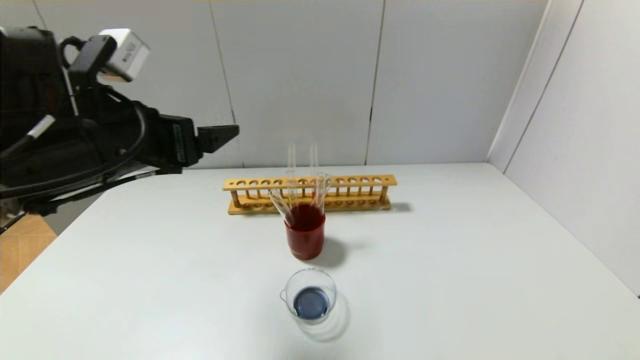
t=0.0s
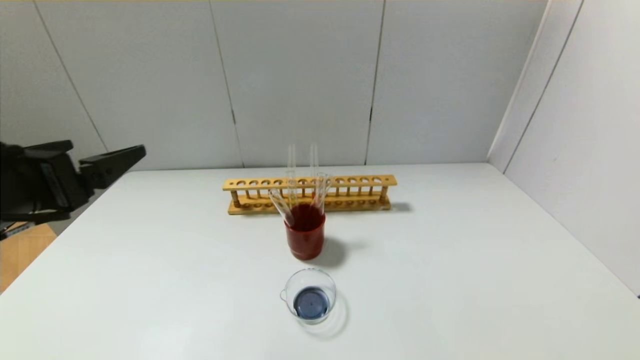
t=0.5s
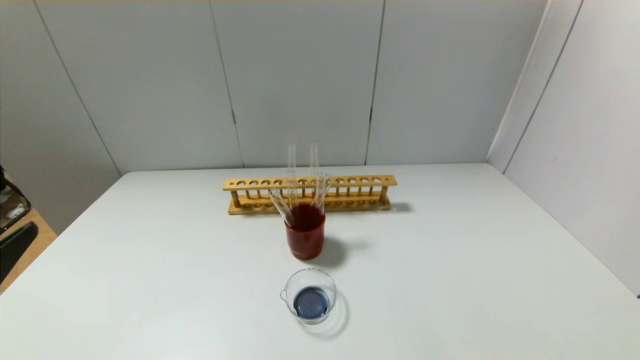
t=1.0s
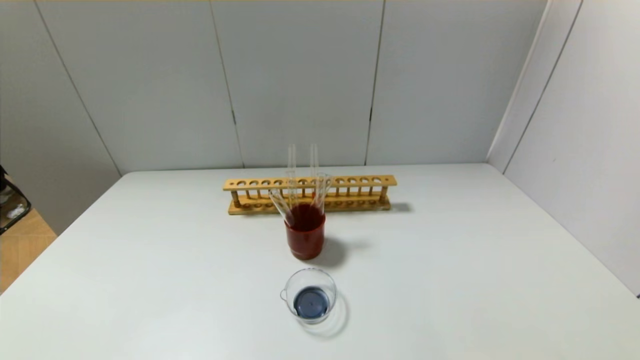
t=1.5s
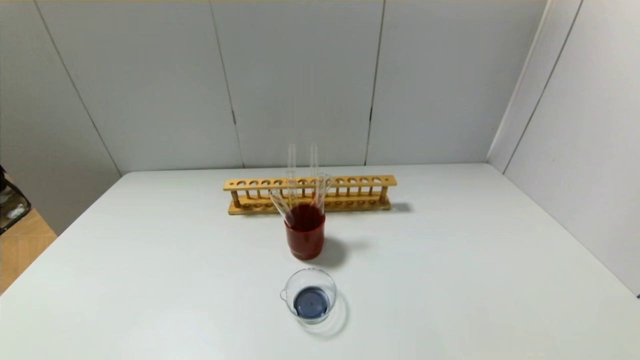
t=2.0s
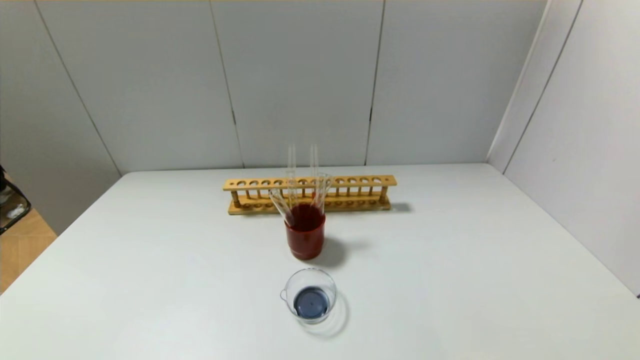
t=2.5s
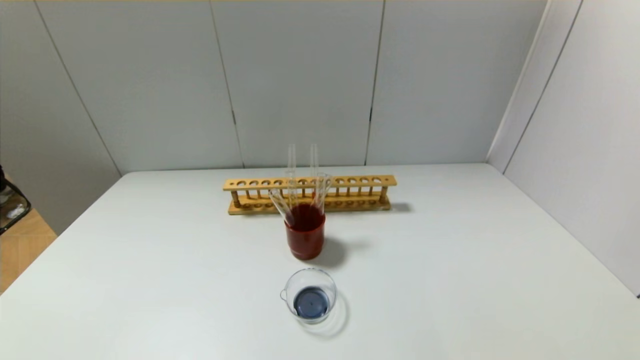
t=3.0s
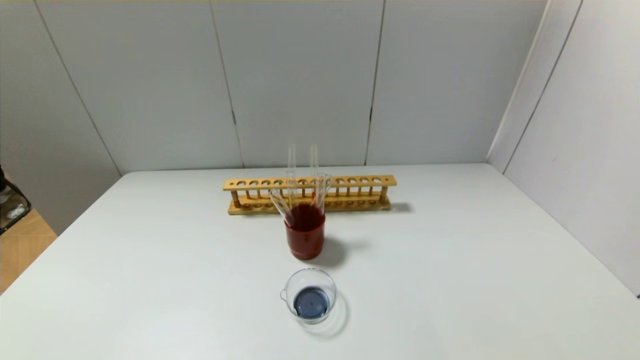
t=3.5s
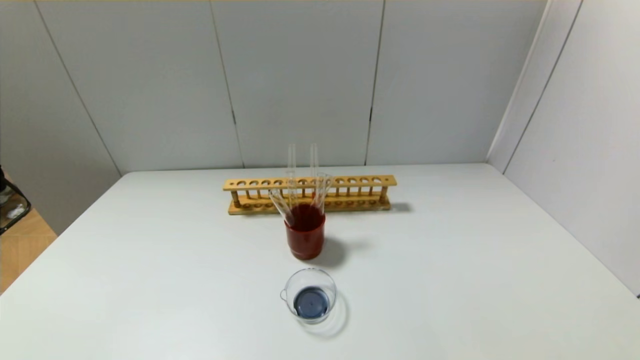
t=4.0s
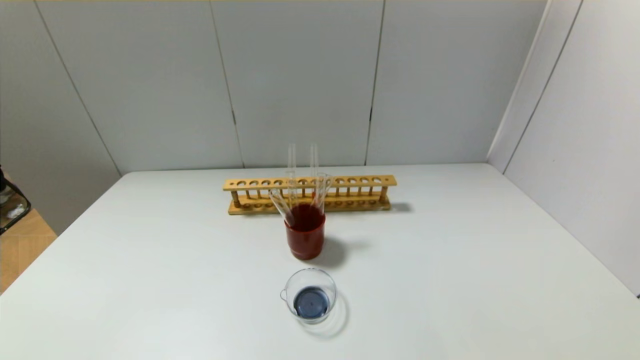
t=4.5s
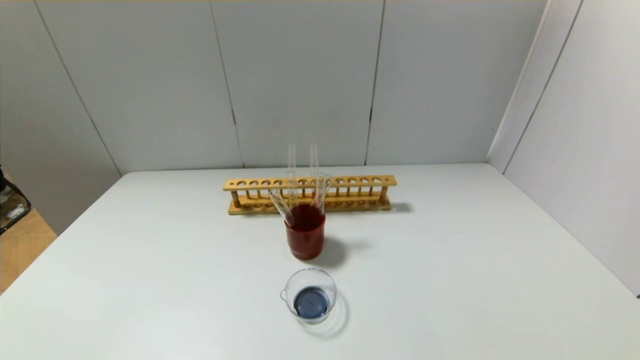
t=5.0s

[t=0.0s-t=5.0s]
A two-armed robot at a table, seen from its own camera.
t=0.0s to t=2.5s: The left gripper is displaced backward and downward by roughly 30 cm.

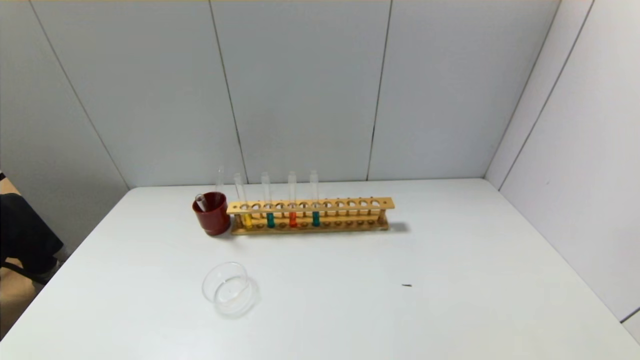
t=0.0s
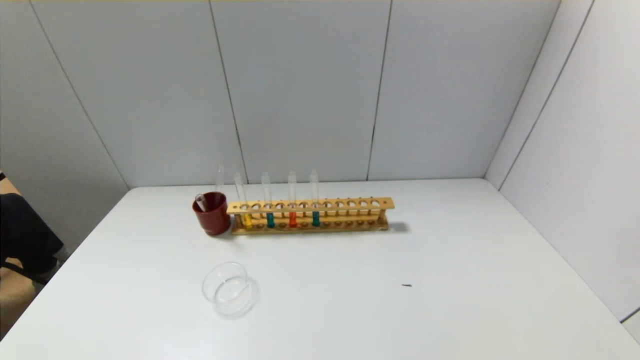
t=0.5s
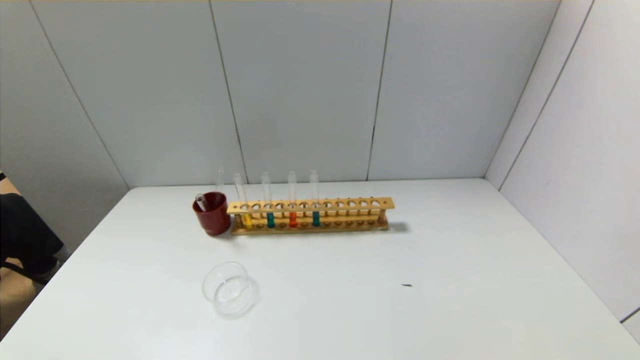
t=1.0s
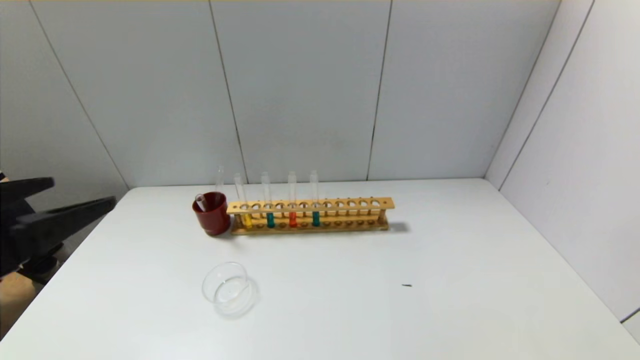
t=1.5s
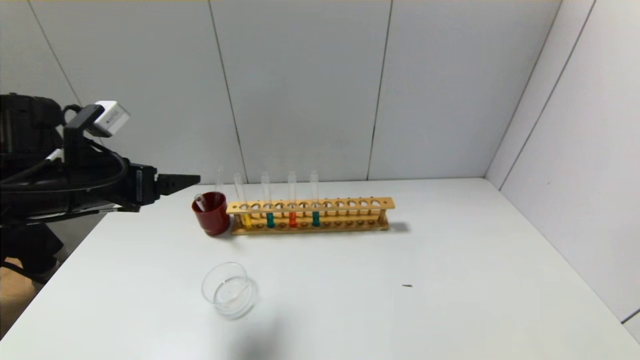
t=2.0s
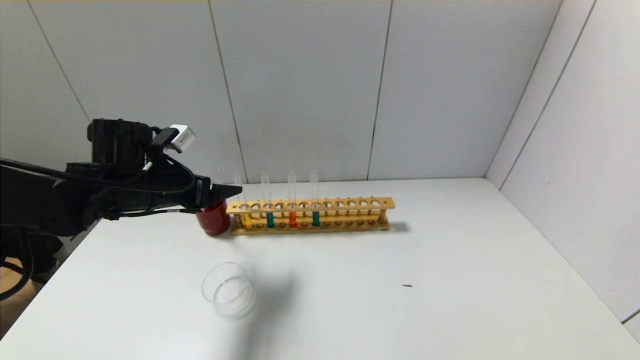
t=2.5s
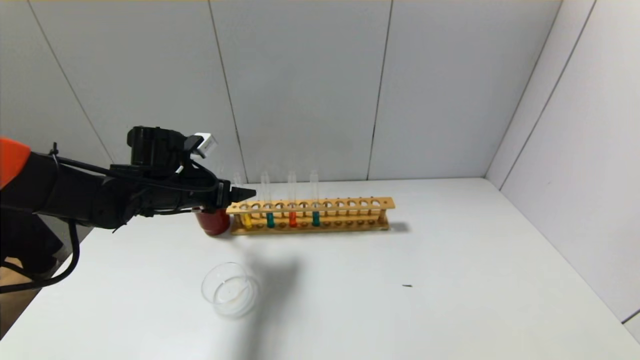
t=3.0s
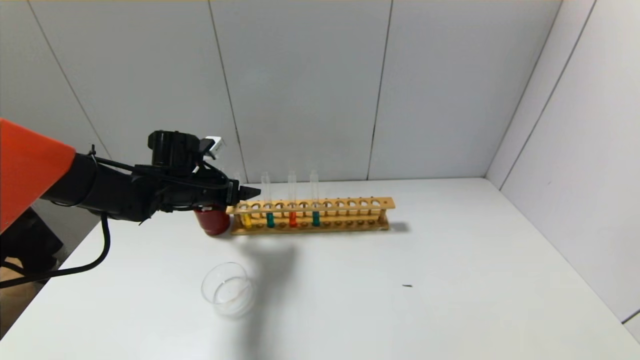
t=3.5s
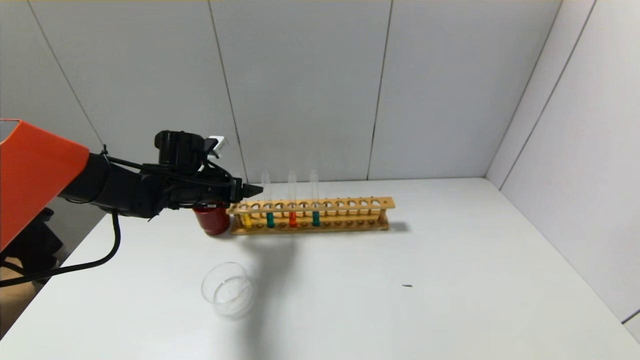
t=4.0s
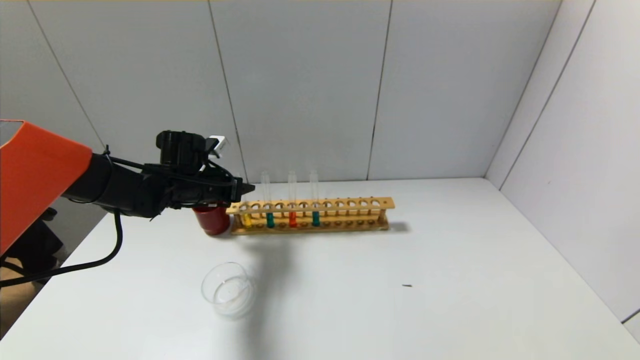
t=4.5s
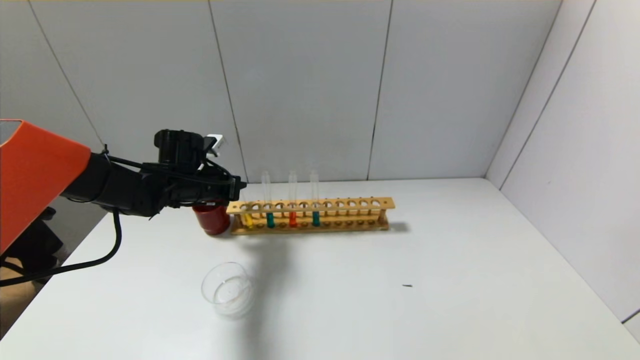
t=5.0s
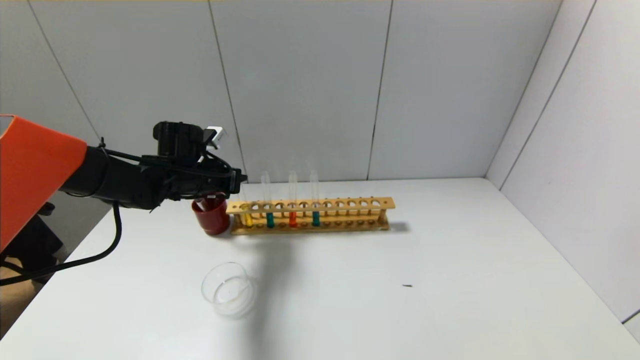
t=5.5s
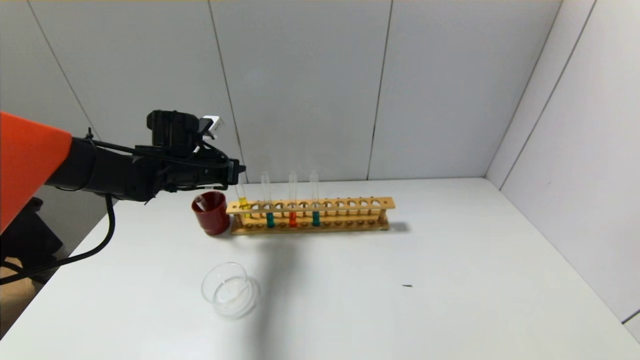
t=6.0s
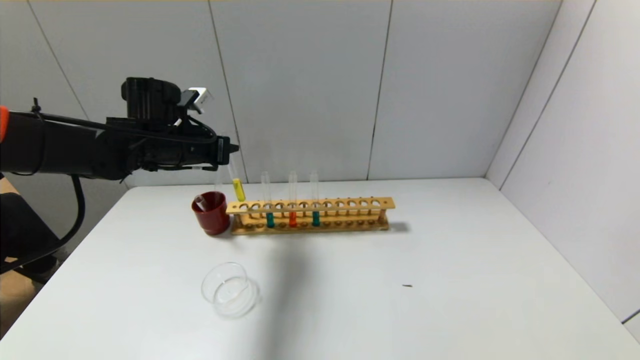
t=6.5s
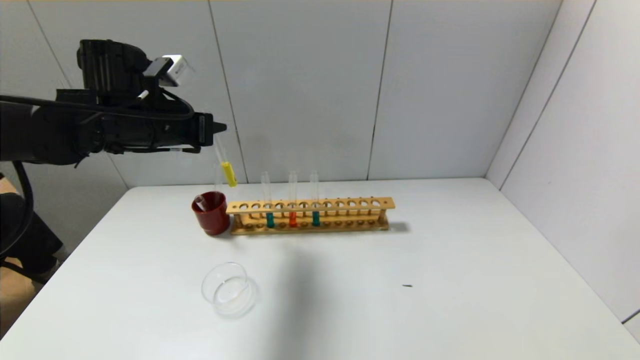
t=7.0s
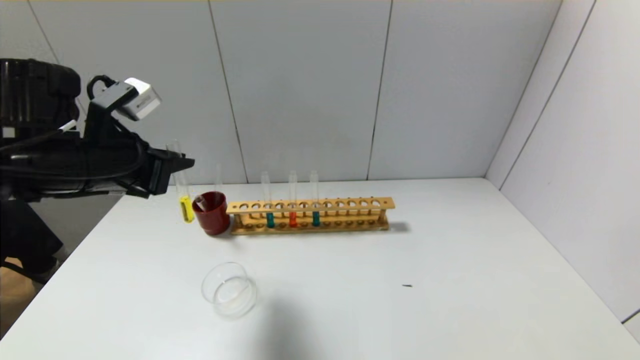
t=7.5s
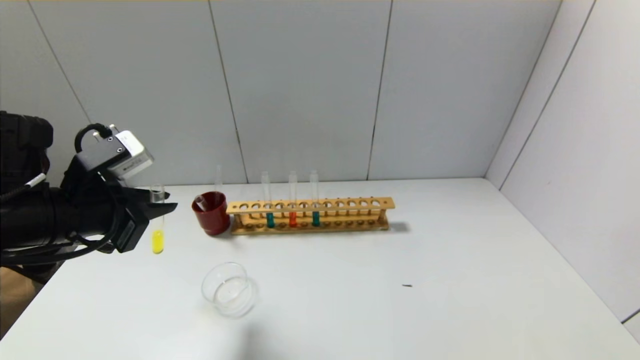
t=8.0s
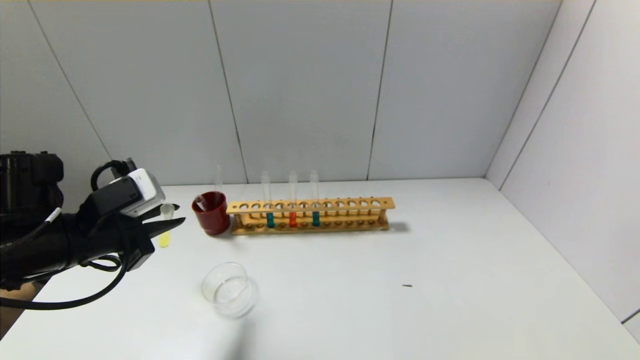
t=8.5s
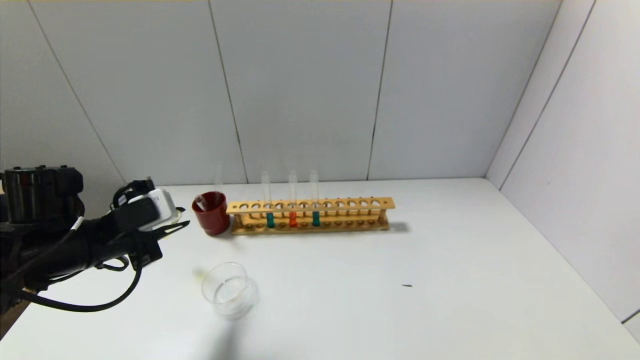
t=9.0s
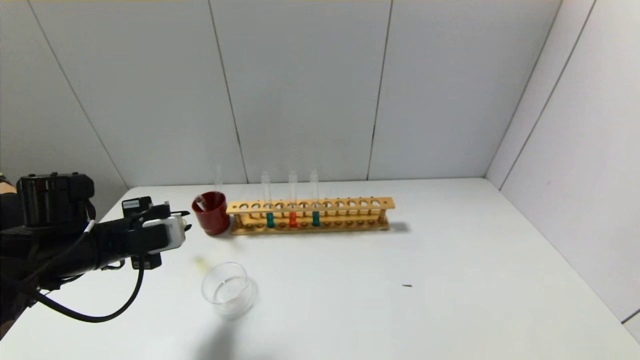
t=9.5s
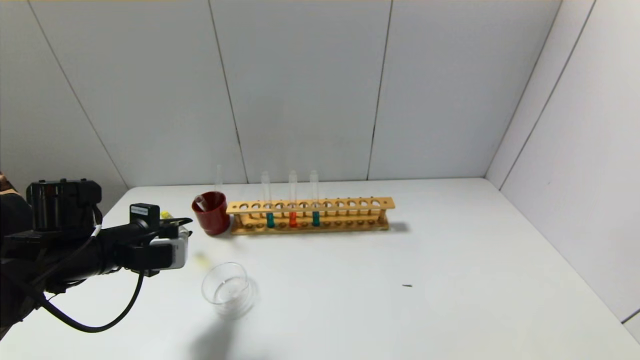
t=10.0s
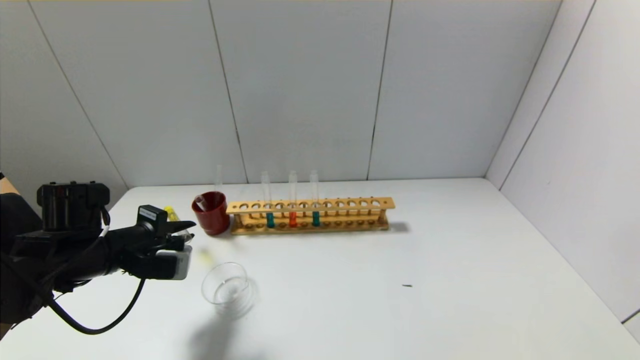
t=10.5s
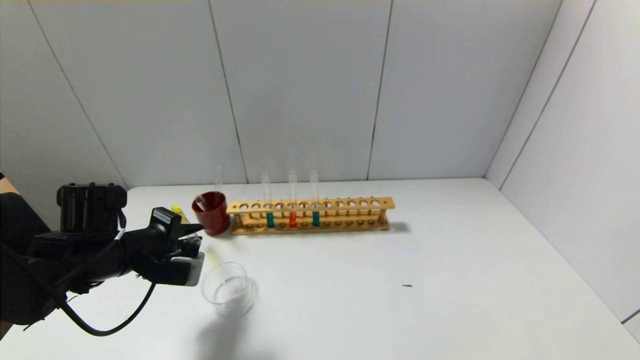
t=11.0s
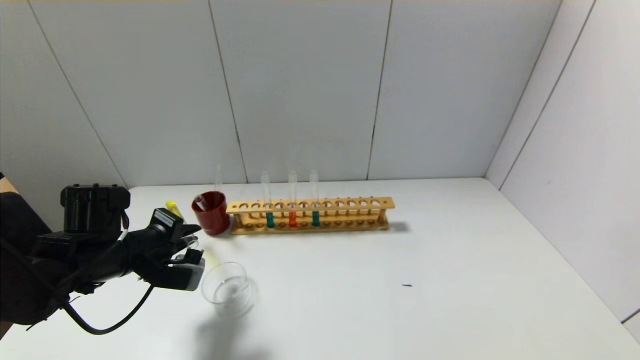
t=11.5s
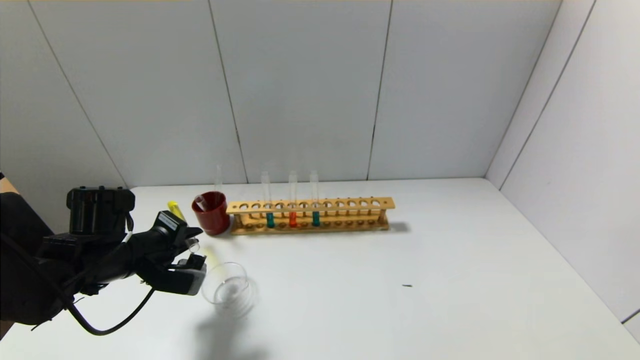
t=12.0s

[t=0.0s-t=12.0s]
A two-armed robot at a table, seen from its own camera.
Step, t=0.0s to t=4.5s: Grasp the yellow reagent with the left gripper.
t=0.0s to t=2.0s: The left gripper travels forward and upward by some 35 cm.
t=2.0s to t=4.0s: The left gripper heads forward, downward and to the right, covering about 15 cm.
t=4.0s to t=6.0s: The left gripper closes.
t=6.0s to t=8.0s: The left gripper is displaced backward by some 20 cm.
t=8.0s to t=10.0s: The left gripper heads downward, covering about 10 cm.

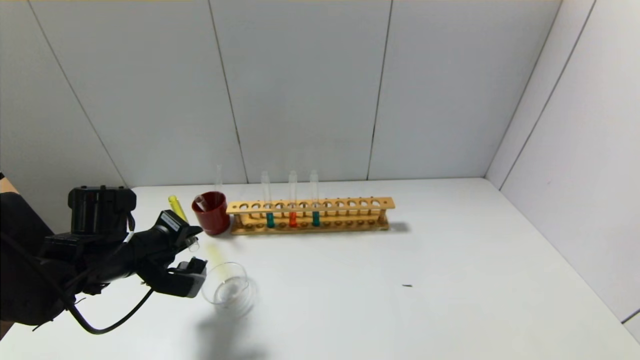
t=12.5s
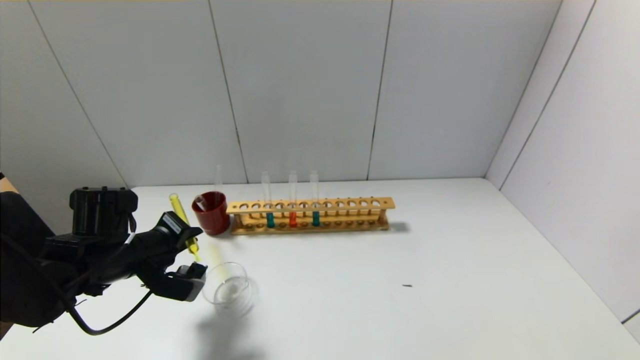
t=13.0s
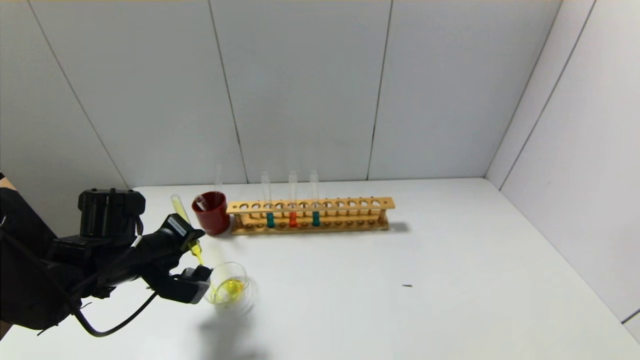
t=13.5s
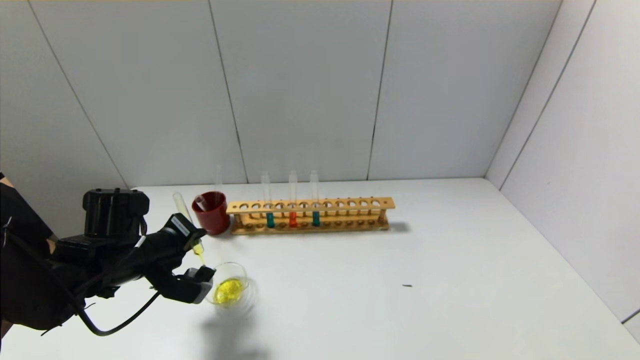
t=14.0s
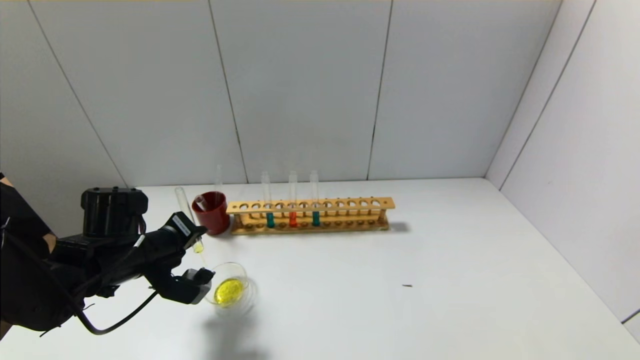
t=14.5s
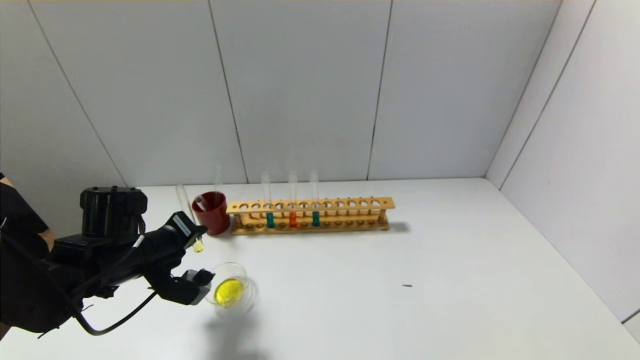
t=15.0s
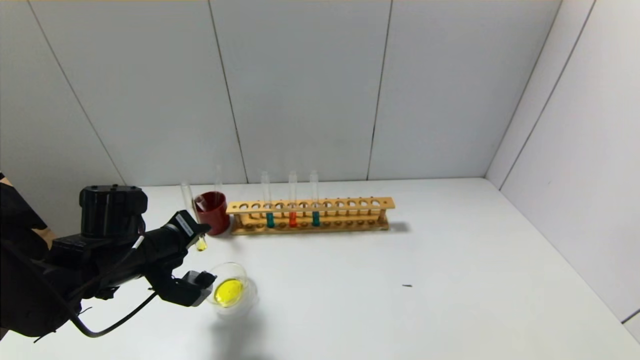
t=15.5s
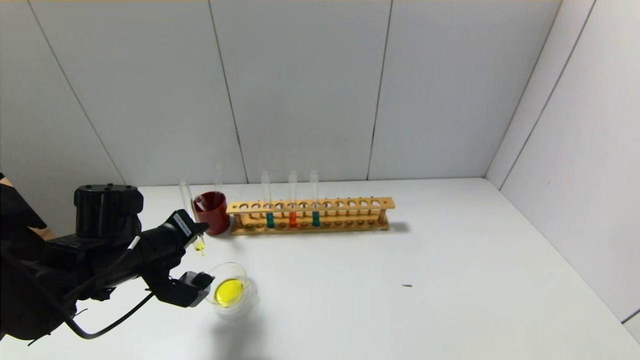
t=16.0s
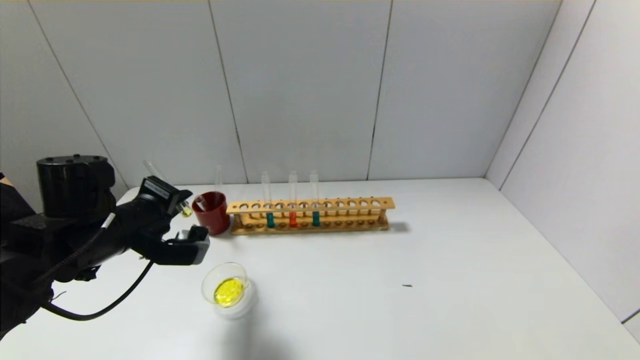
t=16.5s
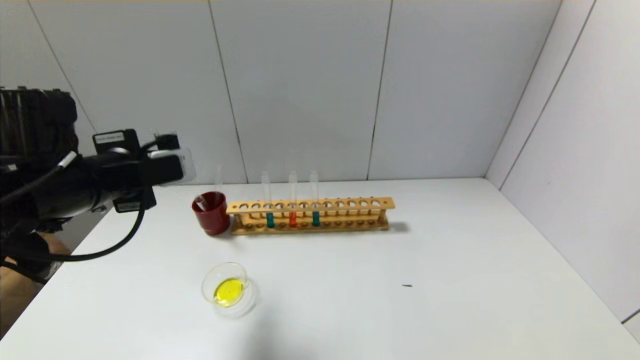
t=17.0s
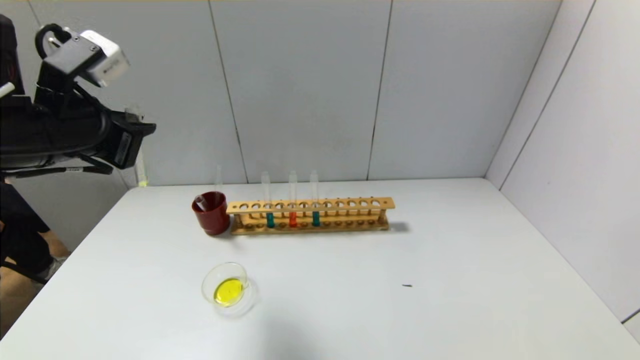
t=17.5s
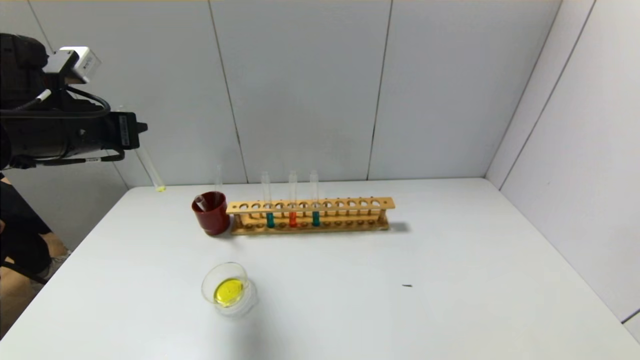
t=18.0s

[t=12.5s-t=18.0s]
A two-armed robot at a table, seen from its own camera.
Step, t=12.5s to t=16.5s: Pour the yellow reagent into the graduated cylinder with the left gripper.
t=12.5s to t=16.0s: The grippers make only small movements.
t=16.0s to t=18.0s: The left gripper travels upward by approximately 15 cm.
